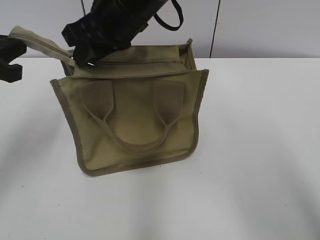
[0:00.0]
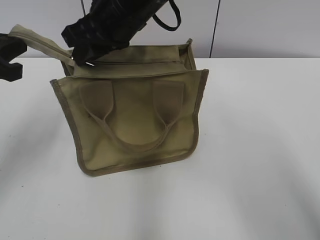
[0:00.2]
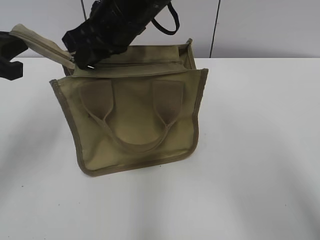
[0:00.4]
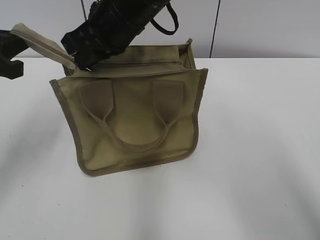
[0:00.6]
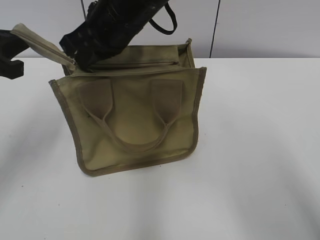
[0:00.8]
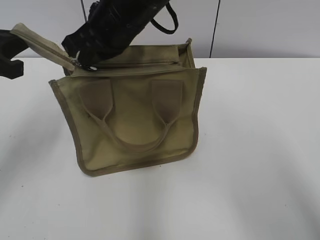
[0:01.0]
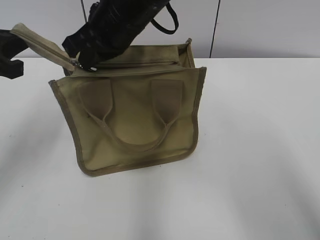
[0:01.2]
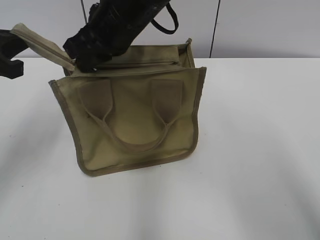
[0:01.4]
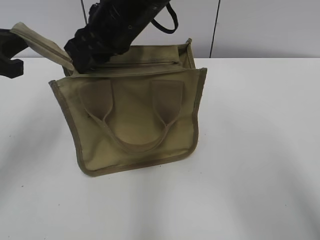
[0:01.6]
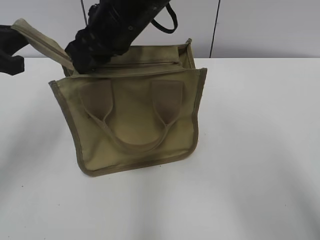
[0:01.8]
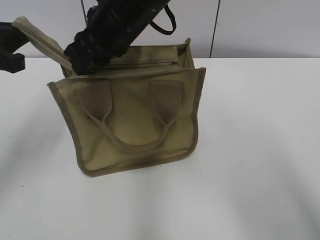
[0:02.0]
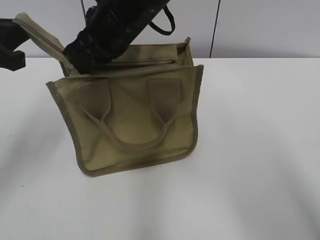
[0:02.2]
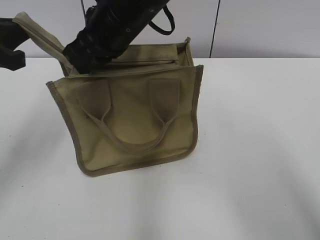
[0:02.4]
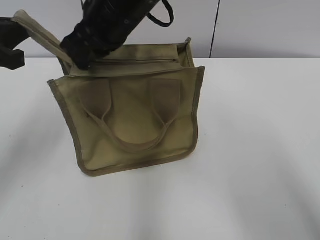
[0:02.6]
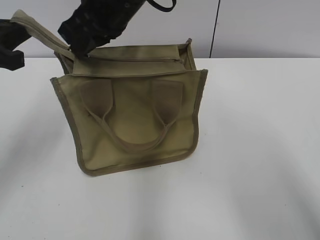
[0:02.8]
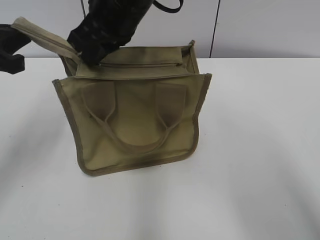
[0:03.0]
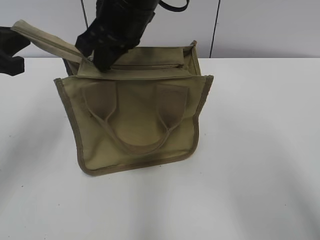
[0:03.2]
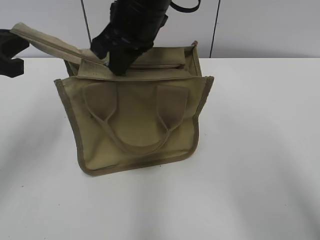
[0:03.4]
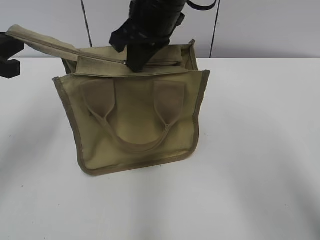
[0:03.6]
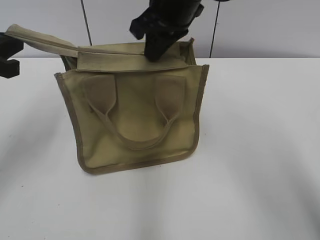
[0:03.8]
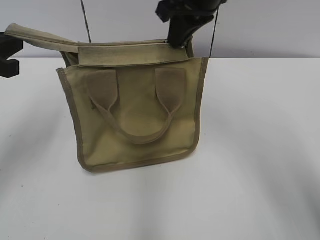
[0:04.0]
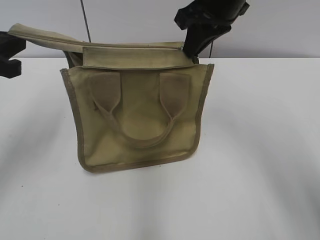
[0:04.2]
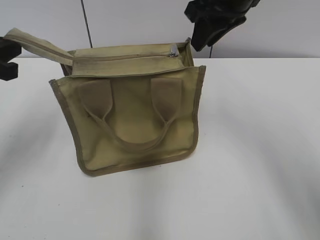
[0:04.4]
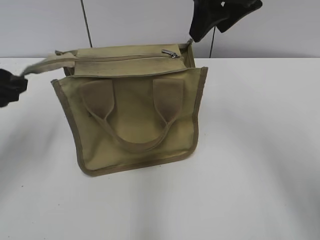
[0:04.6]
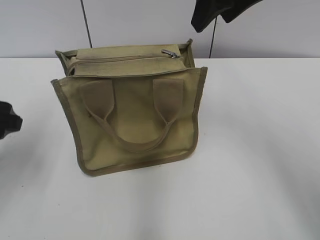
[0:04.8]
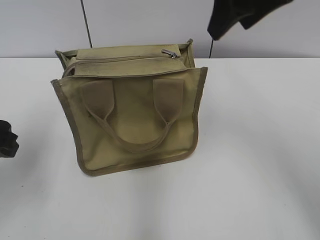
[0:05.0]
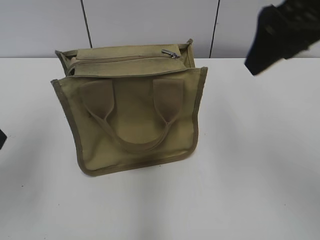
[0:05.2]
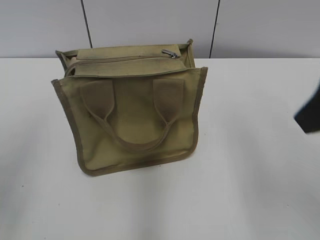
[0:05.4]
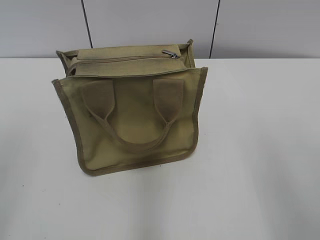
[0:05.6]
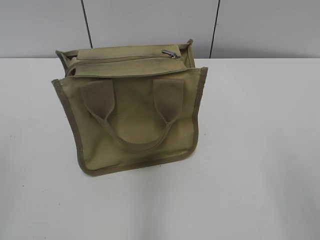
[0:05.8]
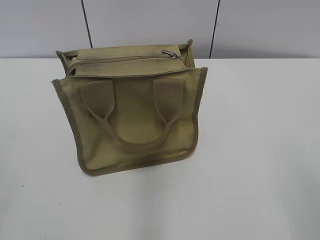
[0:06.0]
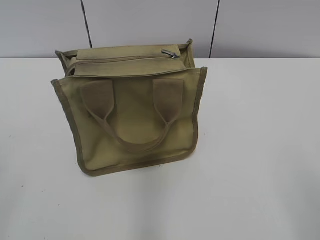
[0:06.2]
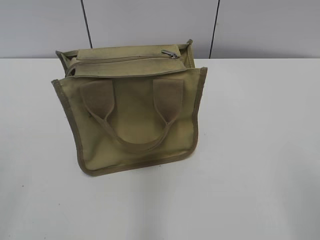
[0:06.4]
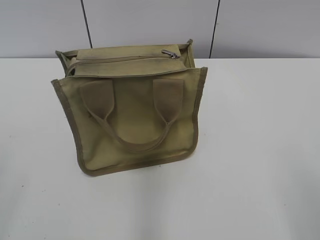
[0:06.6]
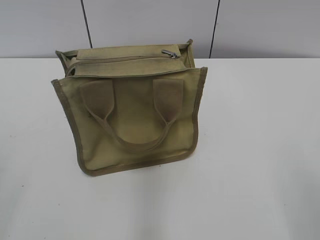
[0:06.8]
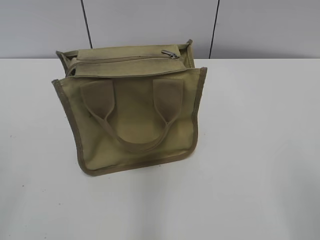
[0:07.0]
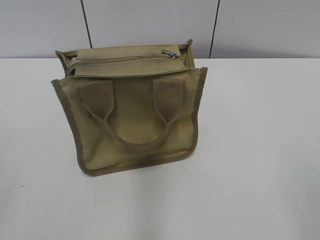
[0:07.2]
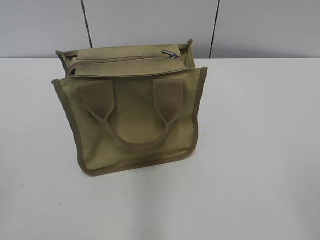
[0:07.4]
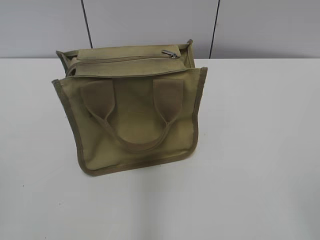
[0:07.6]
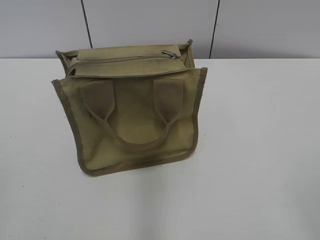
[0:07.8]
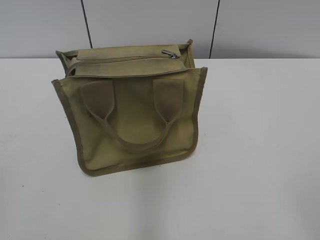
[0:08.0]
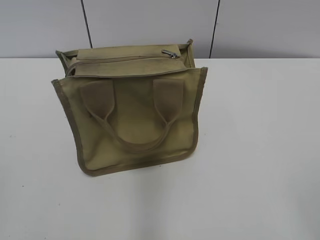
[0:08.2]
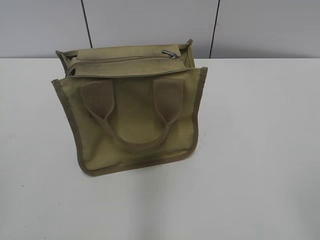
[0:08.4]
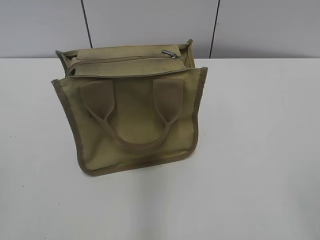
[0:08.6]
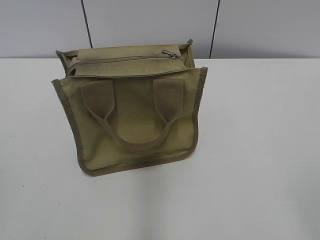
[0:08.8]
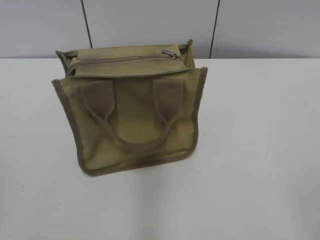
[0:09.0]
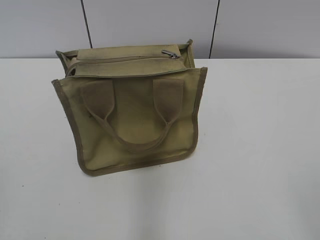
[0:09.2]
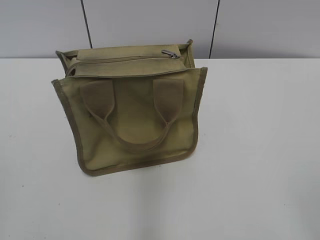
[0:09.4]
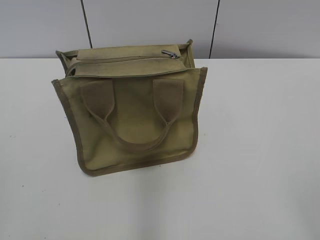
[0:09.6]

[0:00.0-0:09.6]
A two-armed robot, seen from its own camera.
Step, 0:00.0 to 0:04.2: Zip up the bag with your right hand.
0:00.0 to 0:01.6: The right gripper closes, then opens again.
0:01.6 to 0:03.2: The right gripper closes up.
0:03.2 to 0:04.8: The left gripper heads downward, covering approximately 5 cm, and opens its fingers; the right gripper travels to the right and upward by about 15 cm, and opens up.
0:04.8 to 0:06.4: The right gripper shifts approximately 35 cm backward and to the right. The left gripper travels backward by approximately 20 cm.
0:08.0 to 0:09.6: Neither gripper changes place.
